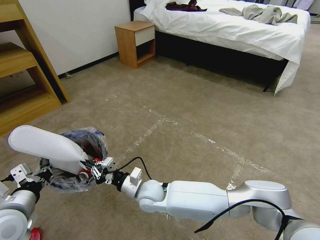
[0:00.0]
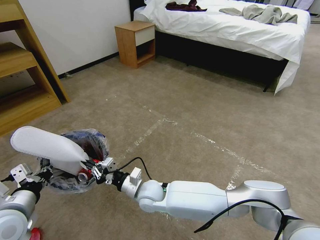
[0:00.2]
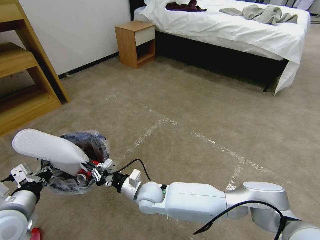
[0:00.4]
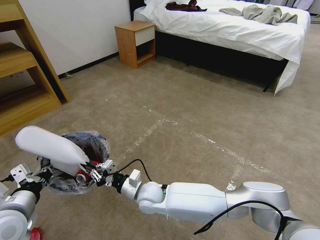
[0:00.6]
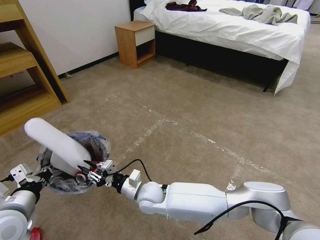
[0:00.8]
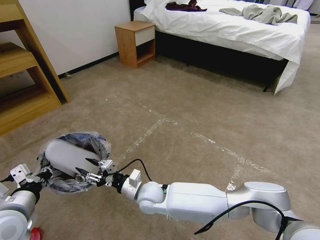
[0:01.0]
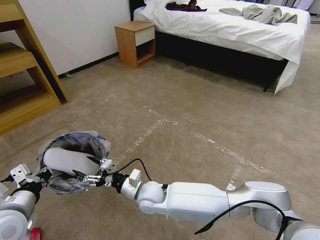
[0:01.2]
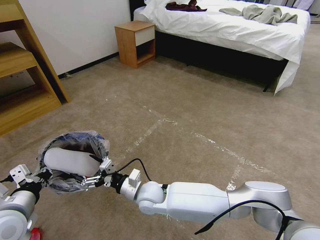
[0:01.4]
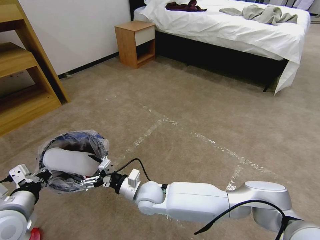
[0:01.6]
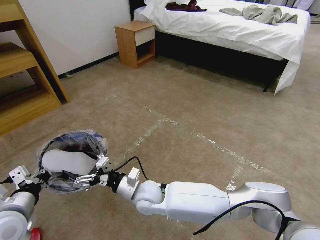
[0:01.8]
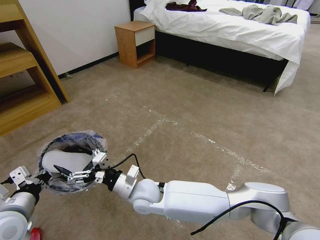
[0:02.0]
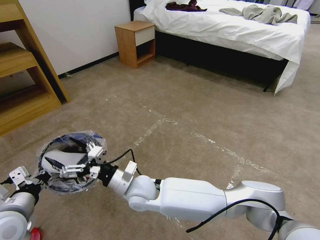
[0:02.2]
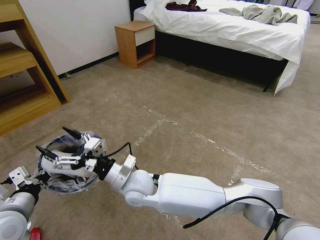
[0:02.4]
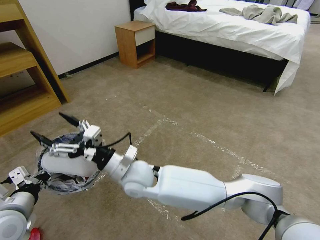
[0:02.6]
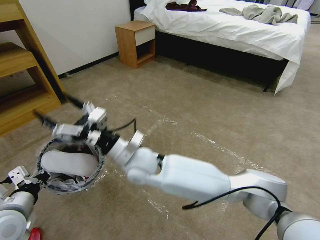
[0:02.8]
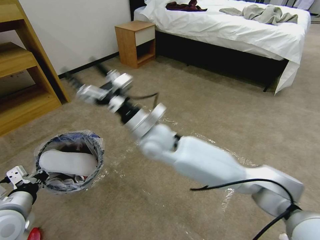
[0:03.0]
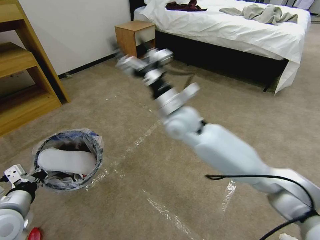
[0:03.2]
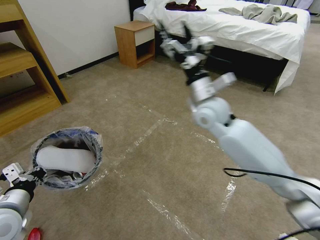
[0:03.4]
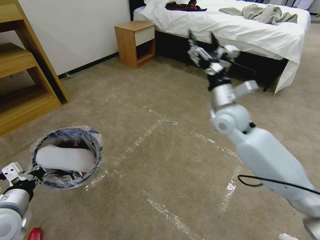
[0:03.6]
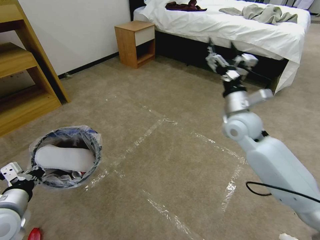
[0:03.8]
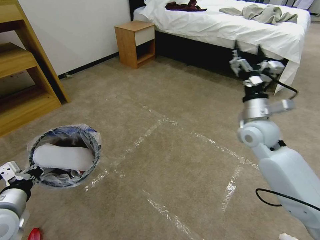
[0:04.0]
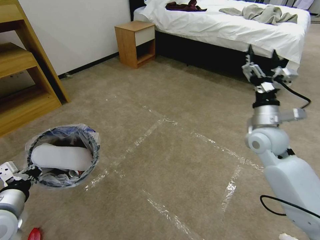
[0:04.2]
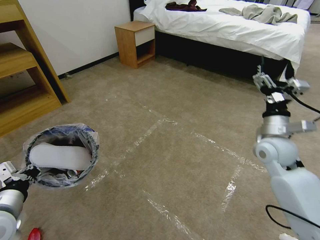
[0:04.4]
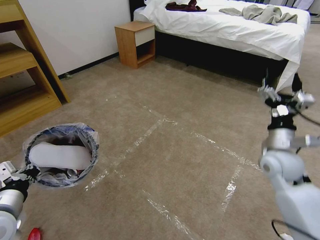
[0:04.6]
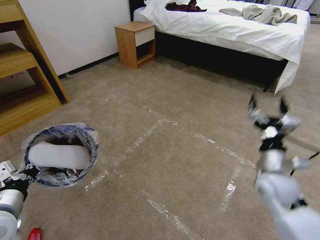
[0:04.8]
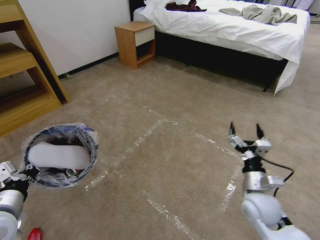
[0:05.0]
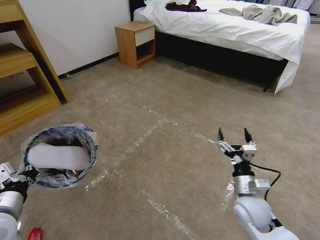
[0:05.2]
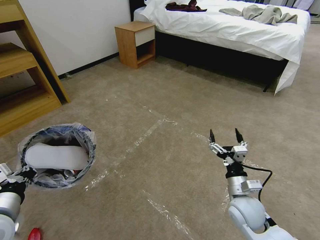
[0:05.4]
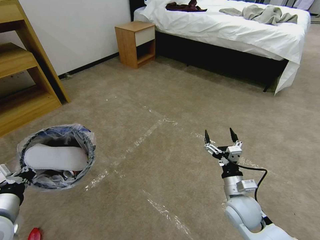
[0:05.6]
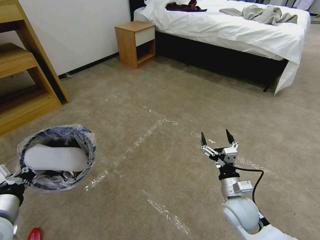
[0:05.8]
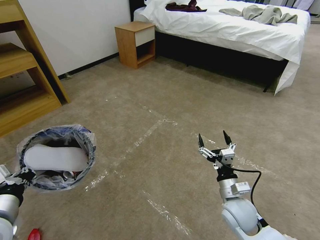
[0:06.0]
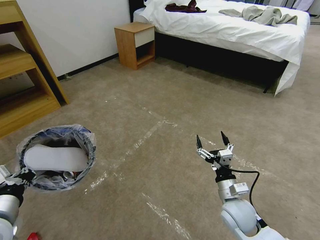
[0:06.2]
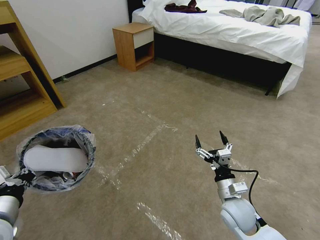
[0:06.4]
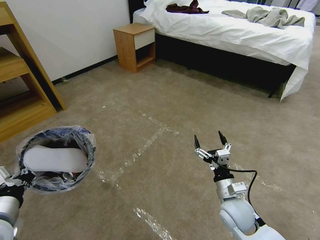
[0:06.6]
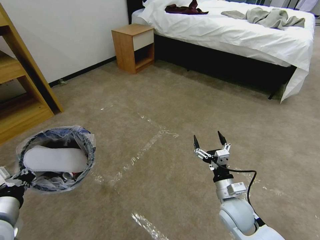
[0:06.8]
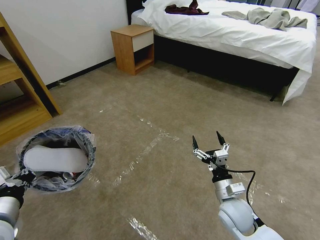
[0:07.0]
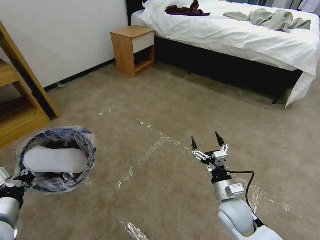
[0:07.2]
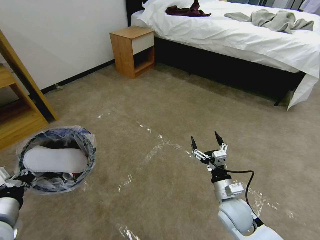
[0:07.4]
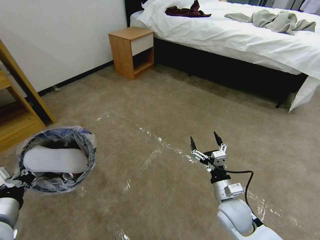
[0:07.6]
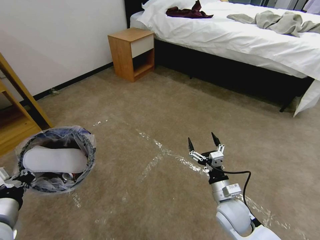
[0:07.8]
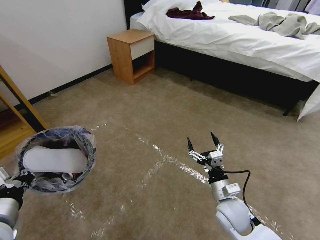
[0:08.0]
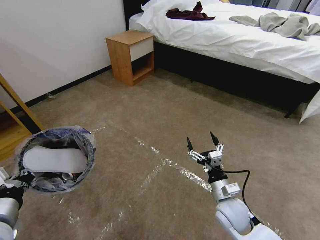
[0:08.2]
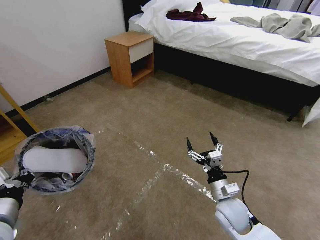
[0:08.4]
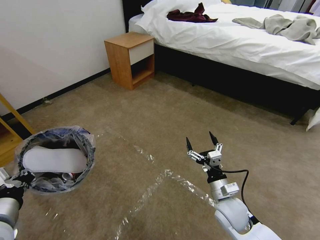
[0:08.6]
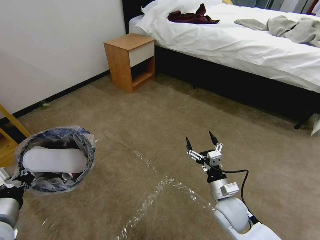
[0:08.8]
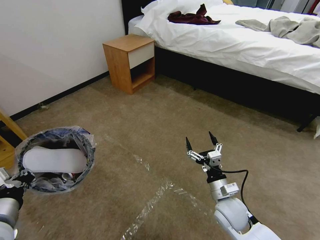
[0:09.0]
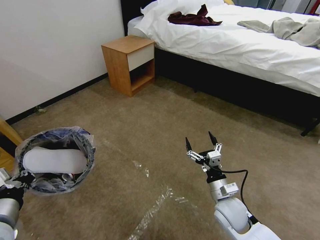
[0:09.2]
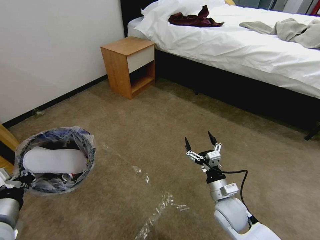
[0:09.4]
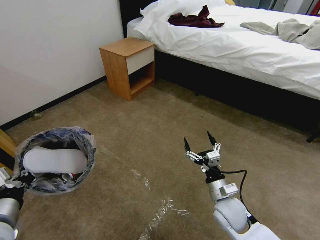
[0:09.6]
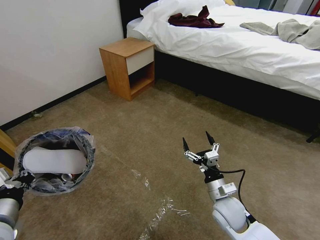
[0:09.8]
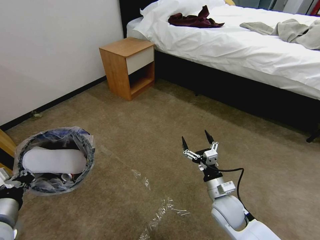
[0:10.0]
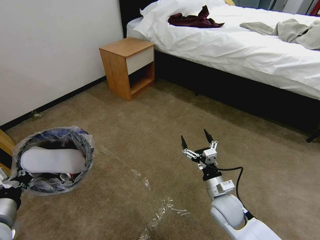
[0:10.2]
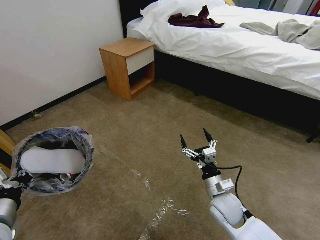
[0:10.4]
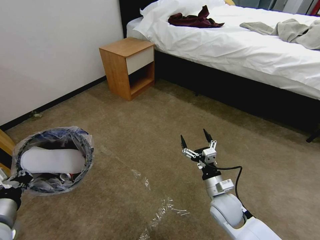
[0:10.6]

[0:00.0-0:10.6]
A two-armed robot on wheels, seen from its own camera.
Task of the whole recording: Pick up the trash bin and place the garbage on the floor into it.
0:00.0 to 0:01.6: The right gripper opens its fingers.
0:01.6 to 0:03.0: The right gripper travels upward and forward by about 20 cm.
0:03.0 to 0:04.6: The right gripper travels to the right by about 35 cm.
0:04.6 to 0:06.0: The right gripper travels downward, to the left and backward by roughly 20 cm.
0:09.0 to 0:10.6: The grippers stay close to where they were, moving slightly.

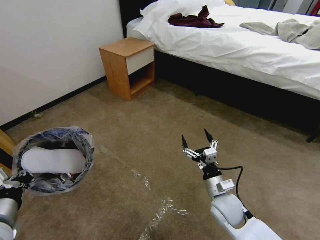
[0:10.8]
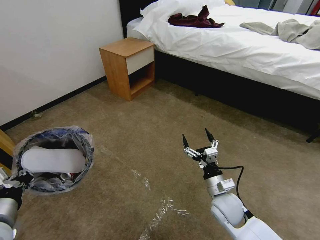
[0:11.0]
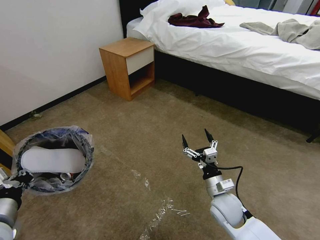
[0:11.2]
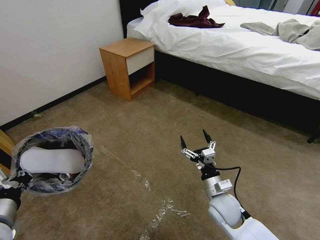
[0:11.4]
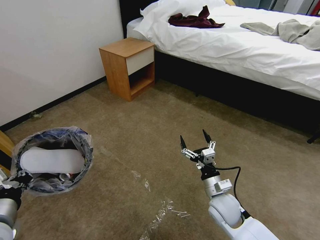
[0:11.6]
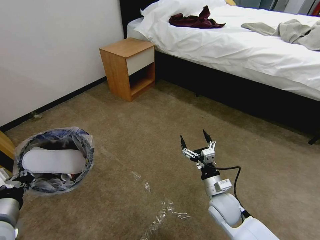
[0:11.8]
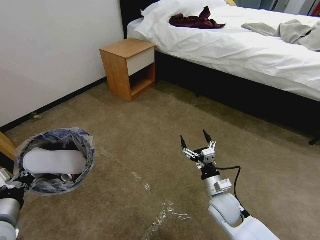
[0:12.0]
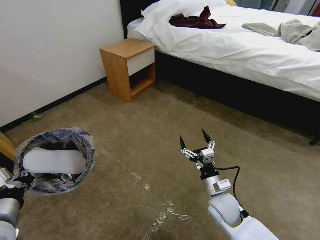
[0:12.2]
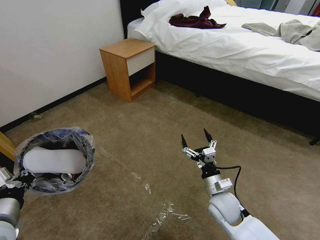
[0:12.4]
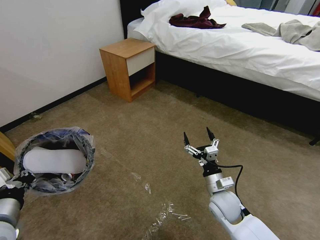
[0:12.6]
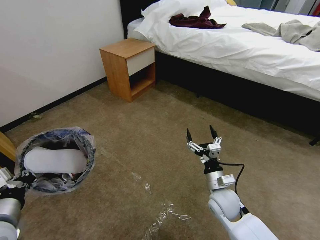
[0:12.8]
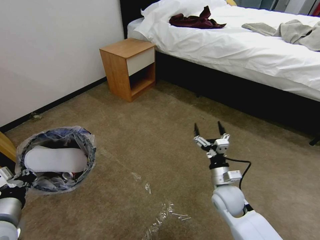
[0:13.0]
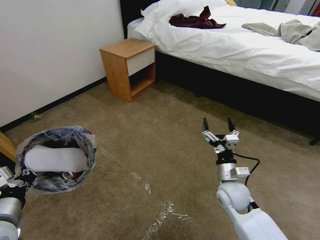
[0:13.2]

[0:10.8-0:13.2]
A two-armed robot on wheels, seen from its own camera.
Task of the whole recording: Pick up the trash bin and place the garbage on the floor into it.
0:10.8 to 0:12.0: Both grippers stay about where they are.
0:12.0 to 0:13.2: The right gripper shifts by approximately 5 cm.
